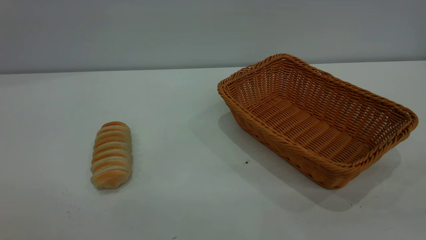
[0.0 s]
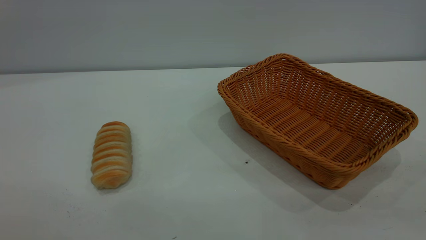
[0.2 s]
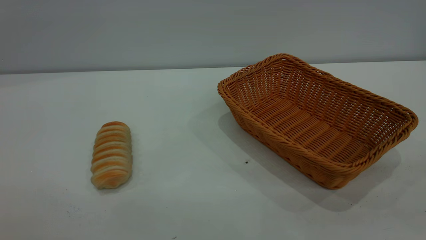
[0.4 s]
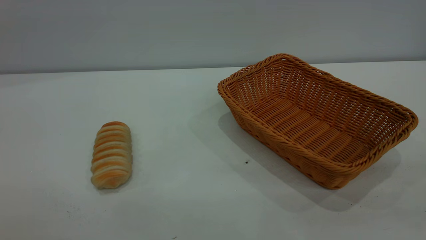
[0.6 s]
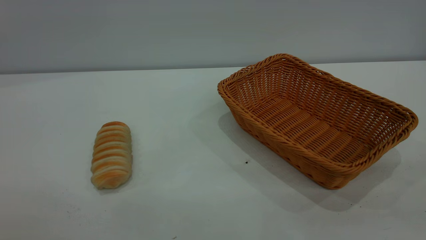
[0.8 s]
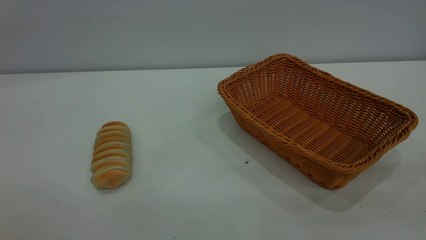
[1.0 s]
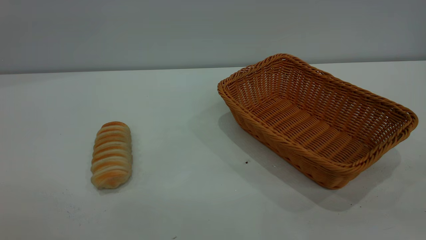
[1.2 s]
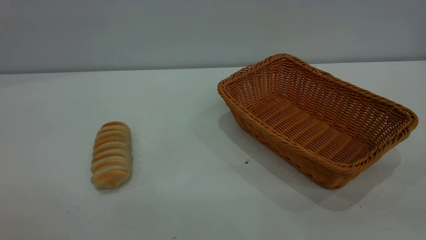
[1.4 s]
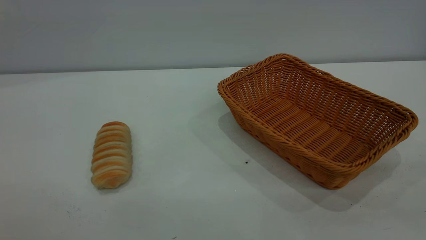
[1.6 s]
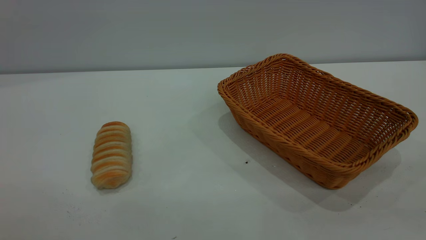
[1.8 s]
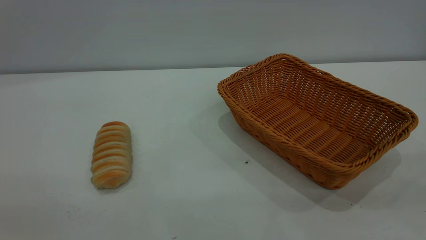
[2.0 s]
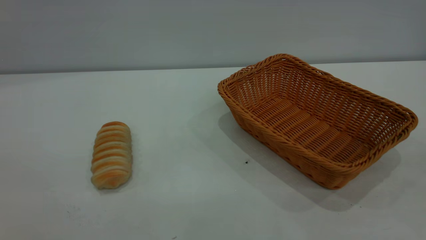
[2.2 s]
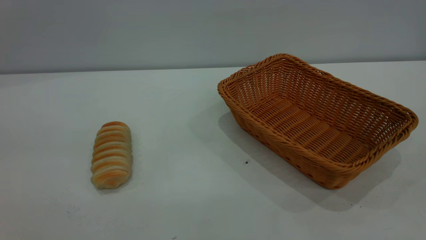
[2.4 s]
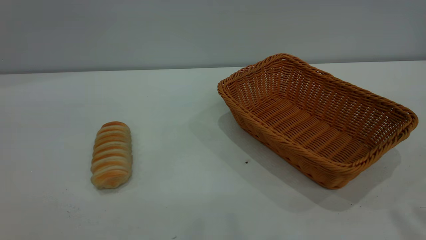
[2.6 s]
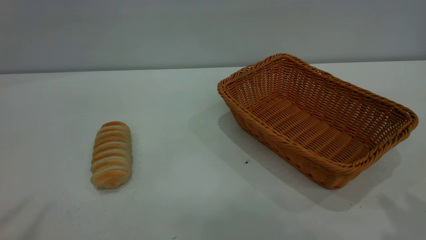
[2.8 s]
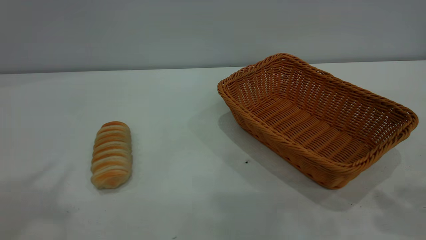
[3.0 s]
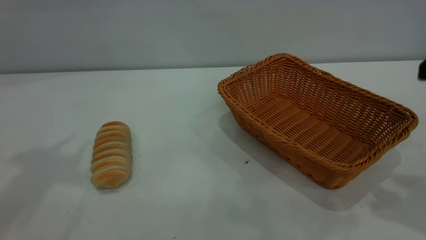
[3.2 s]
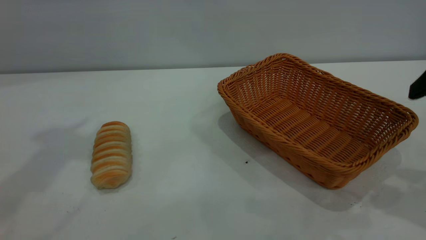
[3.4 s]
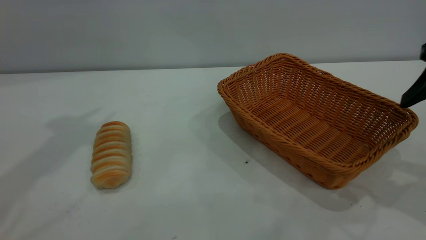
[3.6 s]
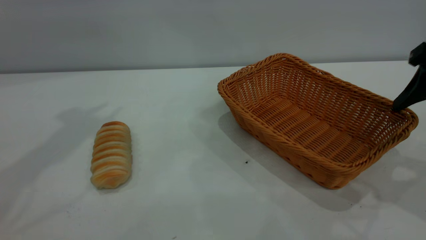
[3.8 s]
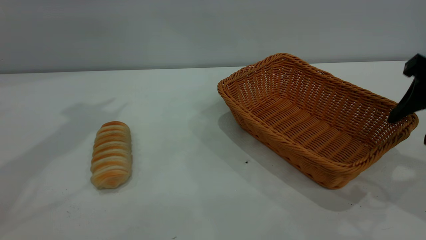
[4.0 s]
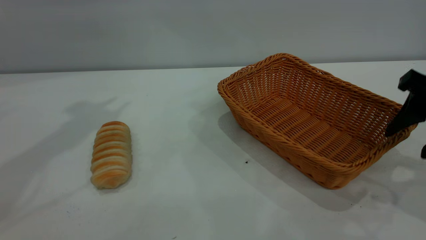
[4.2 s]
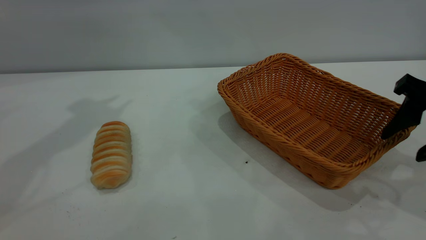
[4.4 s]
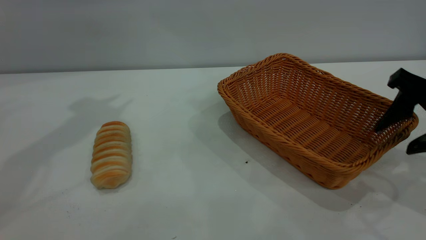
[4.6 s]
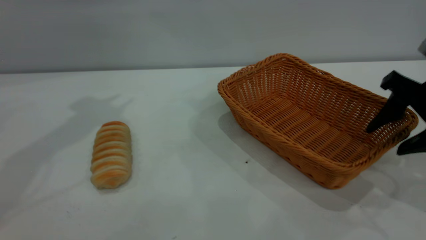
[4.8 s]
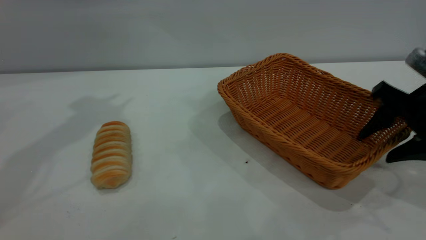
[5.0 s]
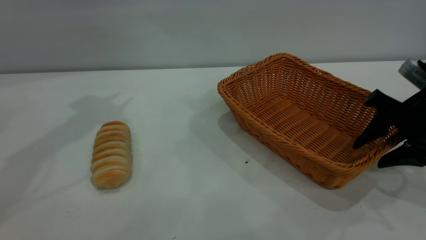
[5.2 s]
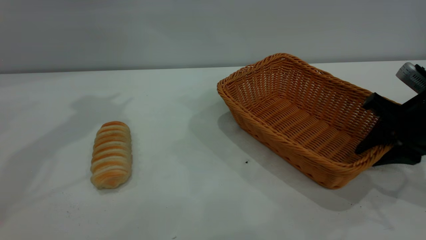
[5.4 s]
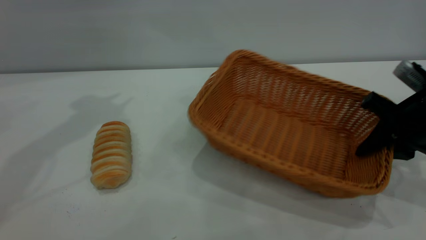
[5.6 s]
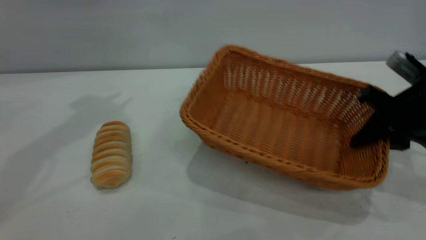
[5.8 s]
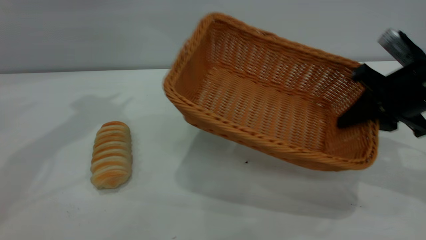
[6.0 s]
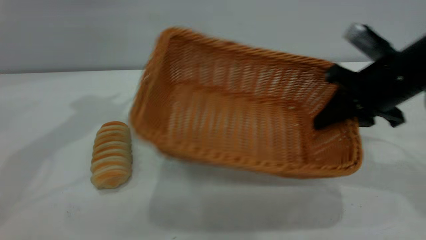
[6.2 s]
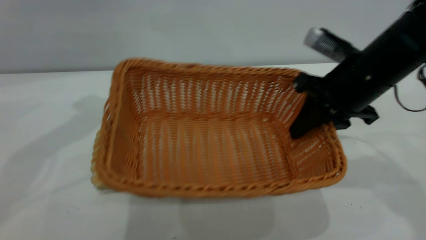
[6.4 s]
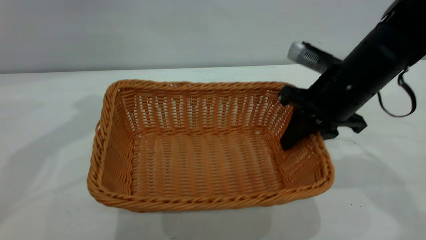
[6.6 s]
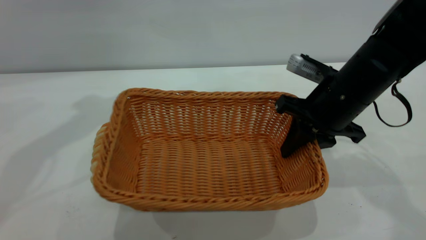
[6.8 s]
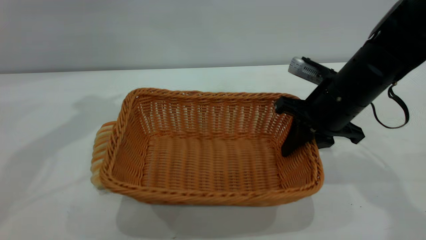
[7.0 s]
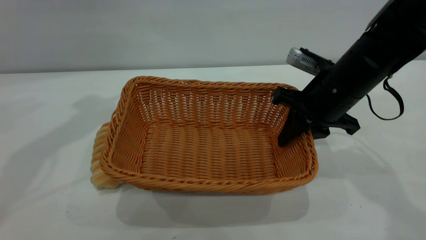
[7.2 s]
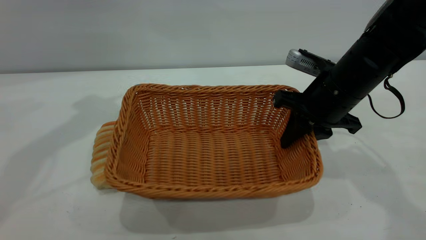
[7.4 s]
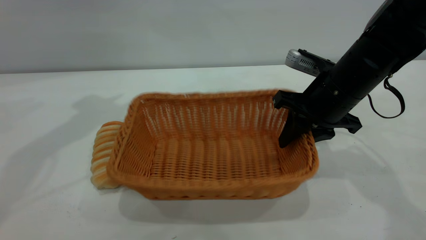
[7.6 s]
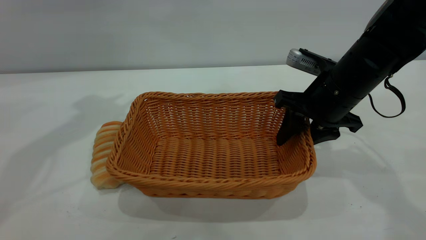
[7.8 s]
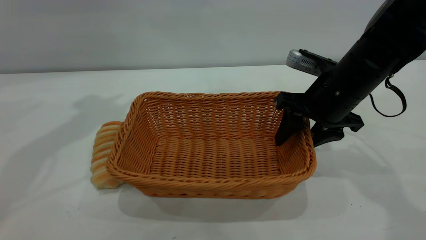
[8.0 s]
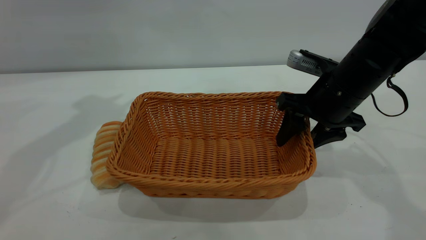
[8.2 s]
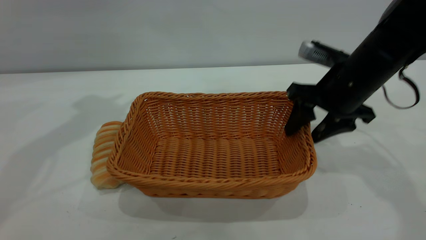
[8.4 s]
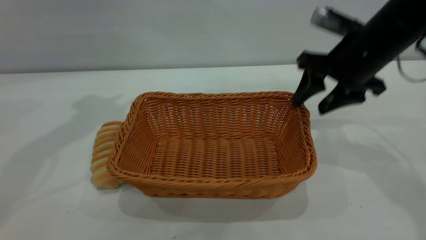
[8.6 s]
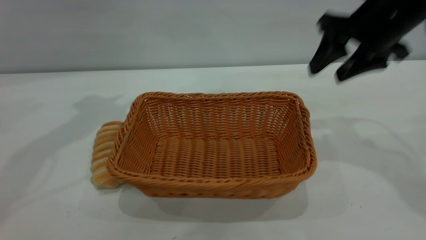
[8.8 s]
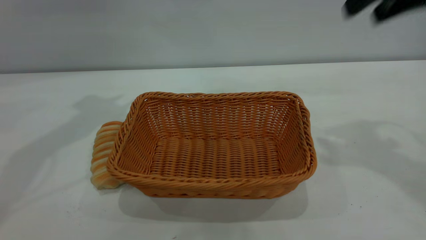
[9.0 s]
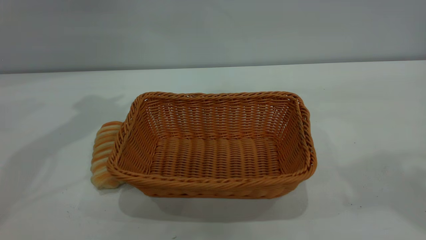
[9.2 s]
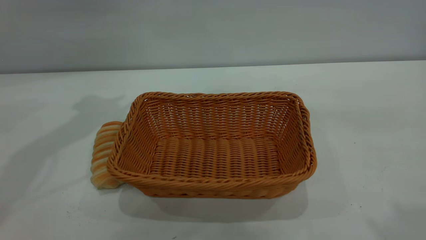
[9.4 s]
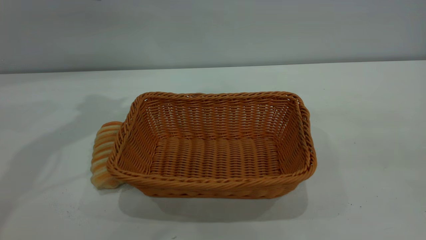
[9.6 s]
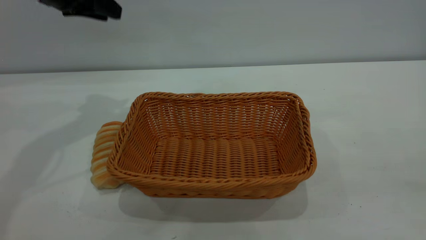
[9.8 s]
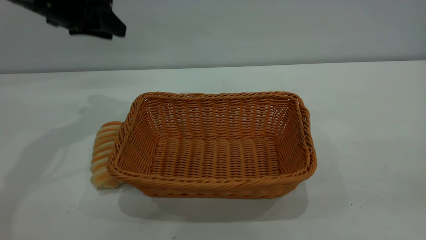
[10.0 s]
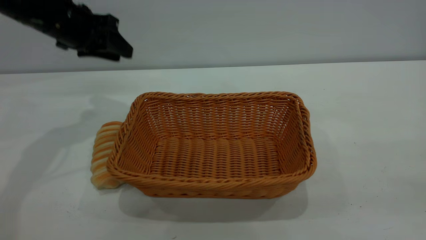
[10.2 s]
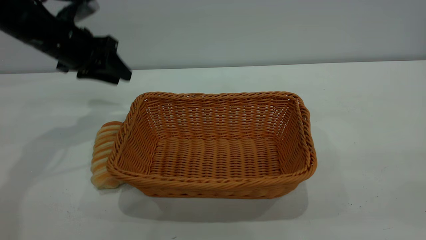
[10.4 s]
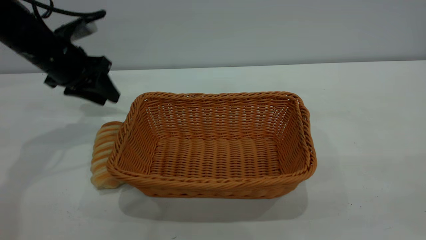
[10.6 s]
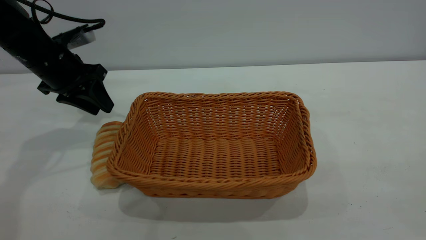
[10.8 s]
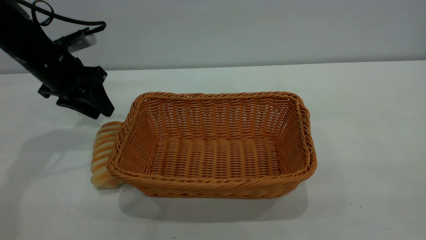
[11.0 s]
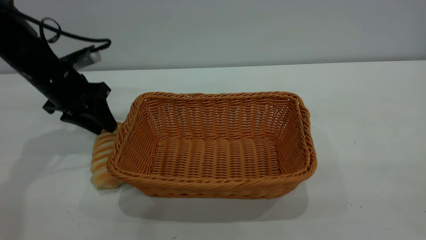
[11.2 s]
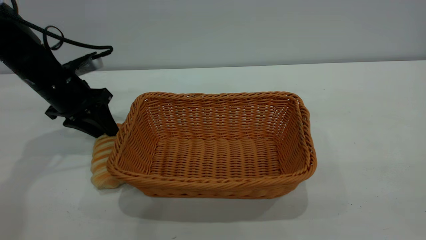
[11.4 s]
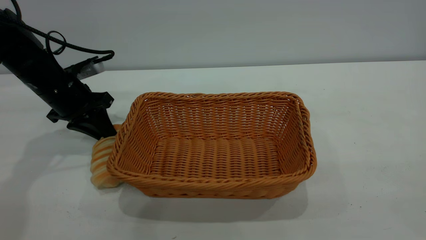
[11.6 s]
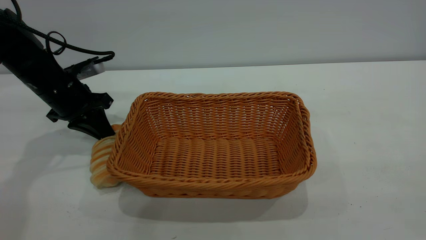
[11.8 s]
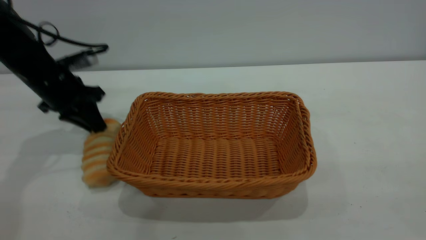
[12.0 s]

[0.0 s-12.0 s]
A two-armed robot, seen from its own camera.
Task of the whole recording: One hand grasps the yellow basket and places it in the middle of the table, while the other hand picks up the long bread and puts it into the yellow basket.
Step, 0.0 to 8.6 s: Move the basket to the center of view.
0.0 to 1.6 s: Both grippers stay put.
3.0 to 4.4 s: The right gripper heads downward and forward, covering roughly 15 cm.
4.4 to 6.0 s: The right gripper travels forward by some 5 cm, and closes its fingers.
6.0 to 7.6 s: The right gripper goes roughly 10 cm to the left.
7.6 to 9.0 s: The right gripper moves upward, roughly 20 cm, and opens up.
9.0 to 10.4 s: The right gripper moves backward, roughly 30 cm, while the left gripper shifts approximately 15 cm downward.
10.4 to 12.0 s: The left gripper closes up.

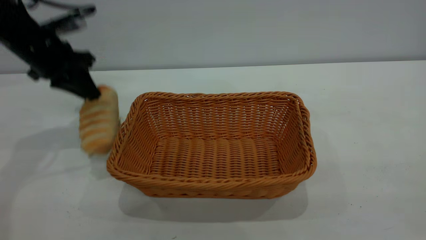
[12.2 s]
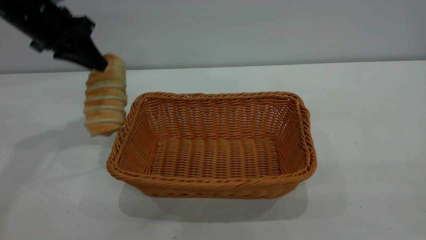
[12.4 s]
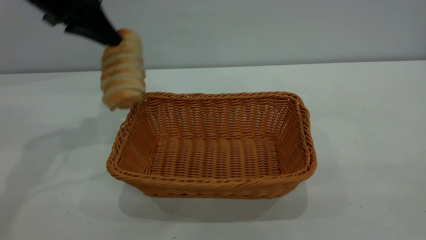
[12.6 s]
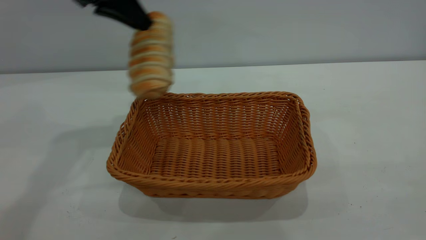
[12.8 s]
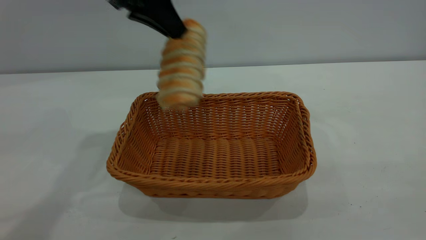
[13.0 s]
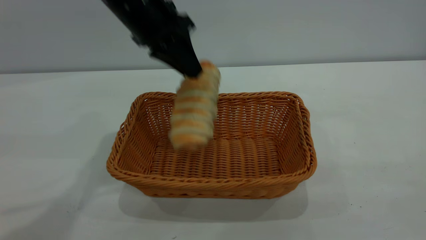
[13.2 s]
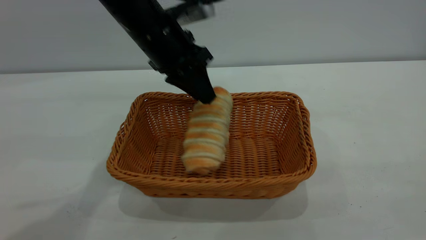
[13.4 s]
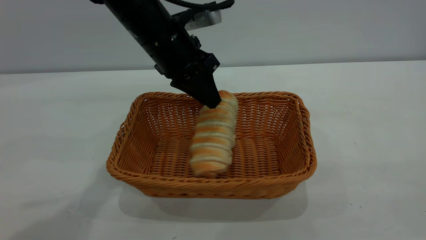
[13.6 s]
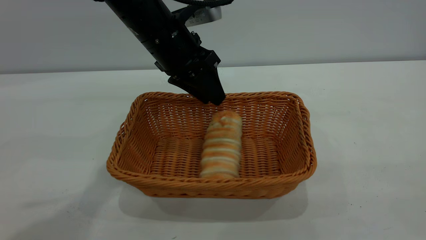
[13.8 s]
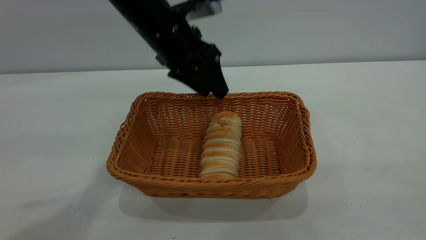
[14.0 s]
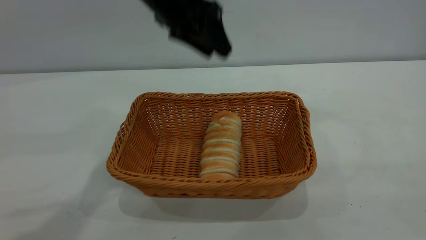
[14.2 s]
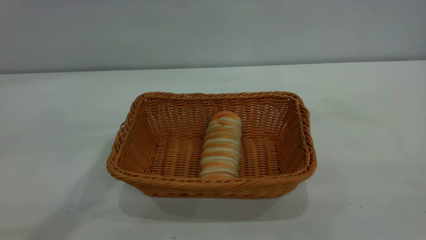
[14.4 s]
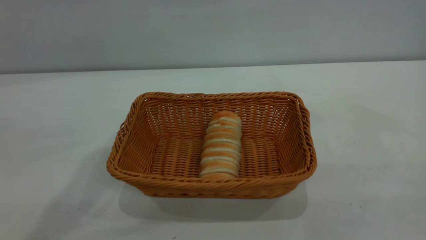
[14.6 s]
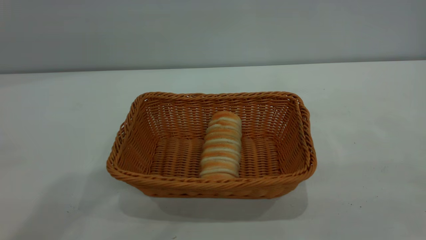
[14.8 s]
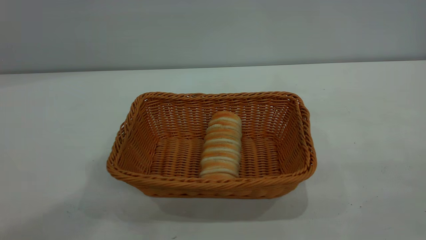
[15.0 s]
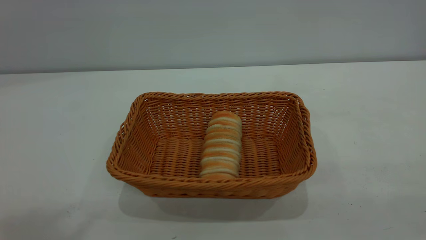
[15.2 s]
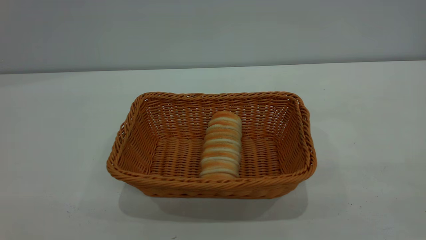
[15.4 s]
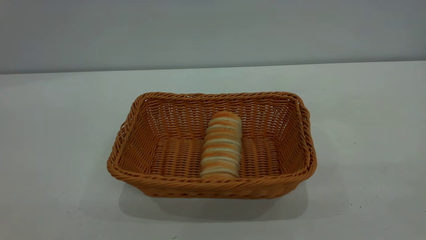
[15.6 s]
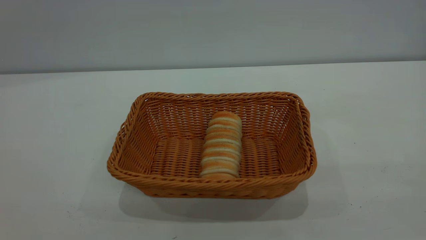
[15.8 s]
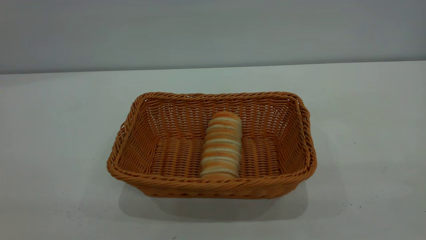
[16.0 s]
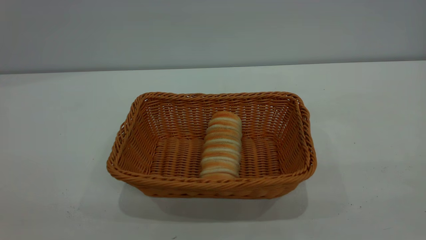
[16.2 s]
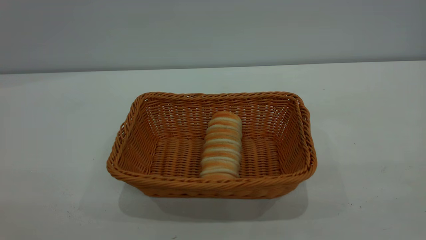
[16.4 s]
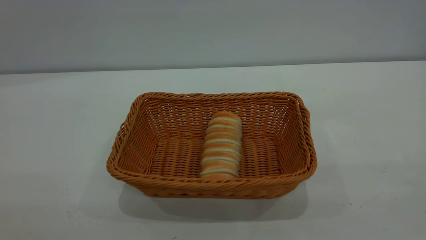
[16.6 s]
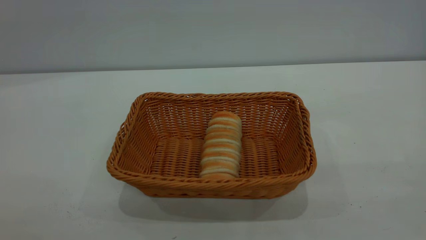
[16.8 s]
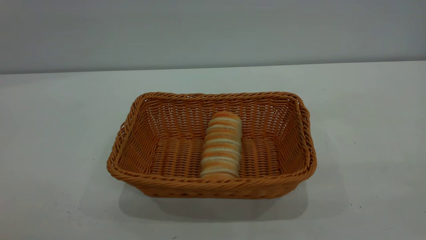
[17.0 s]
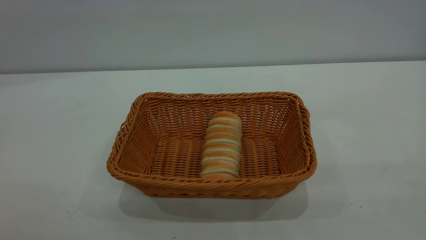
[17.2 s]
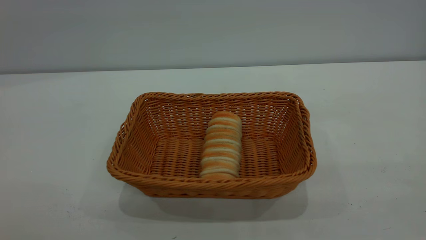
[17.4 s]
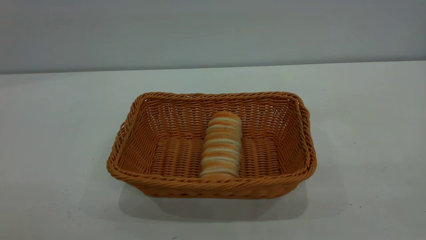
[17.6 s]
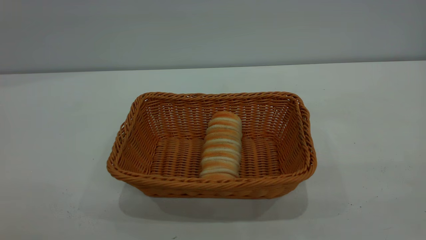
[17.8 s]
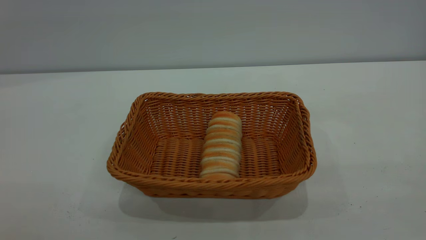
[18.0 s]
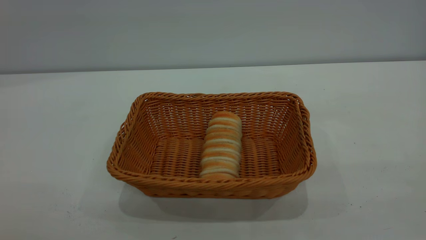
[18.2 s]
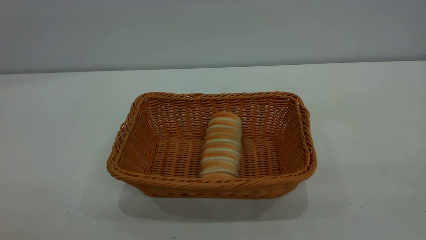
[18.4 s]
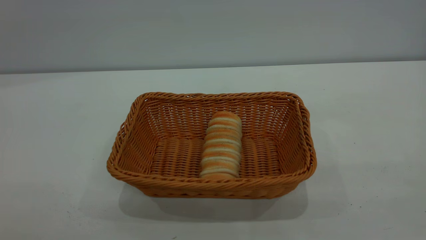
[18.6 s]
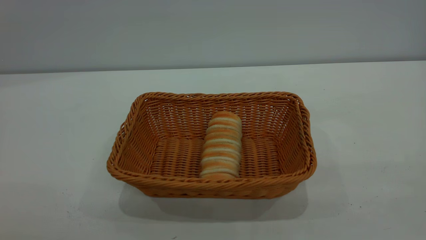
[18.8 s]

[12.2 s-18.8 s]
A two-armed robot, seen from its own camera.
Task of the whole recording: One hand grasps the yellow basket and places it in the middle of the table, while the other hand picks up the long bread and puts it into the yellow basket.
Step, 12.6 to 14.0 s: place the bread into the basket.
12.2 to 13.8 s: The left gripper goes approximately 20 cm to the right, and opens up.
13.8 to 15.4 s: The left gripper heads upward, backward and to the left, covering roughly 60 cm.
17.2 to 18.8 s: Both grippers stay put.
